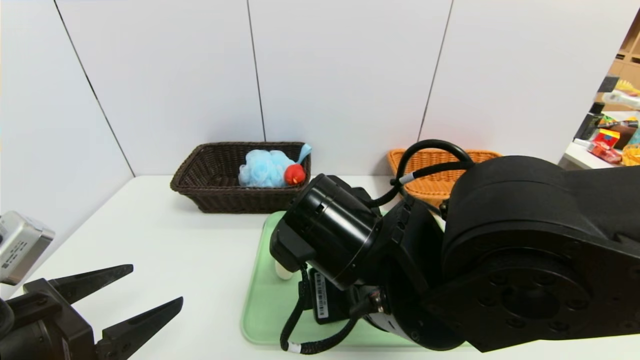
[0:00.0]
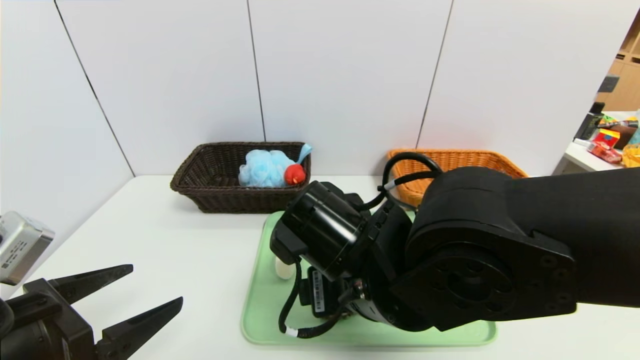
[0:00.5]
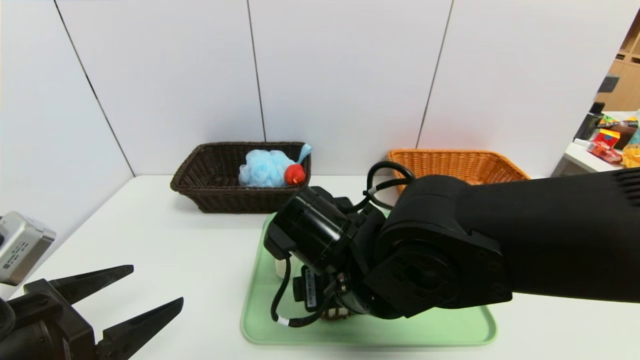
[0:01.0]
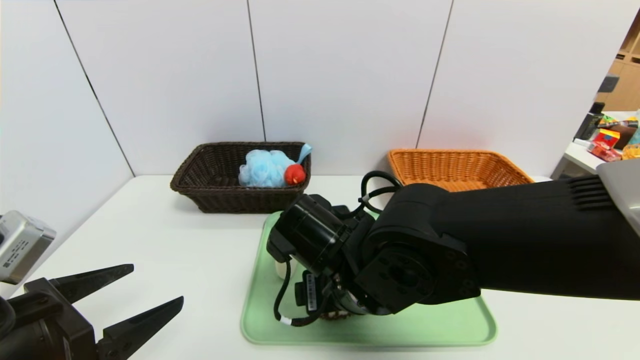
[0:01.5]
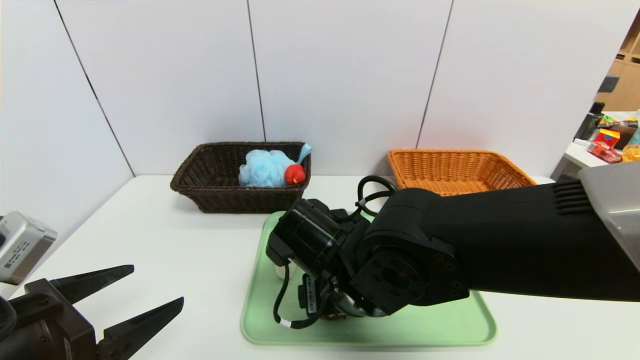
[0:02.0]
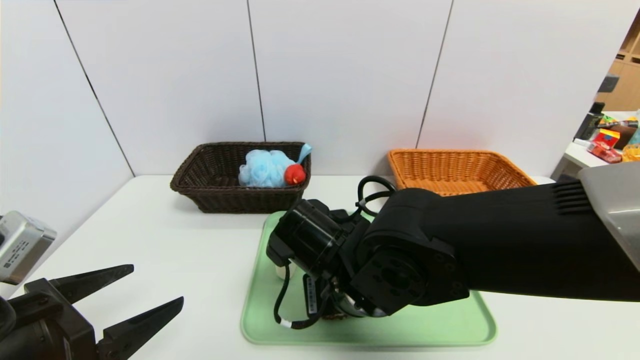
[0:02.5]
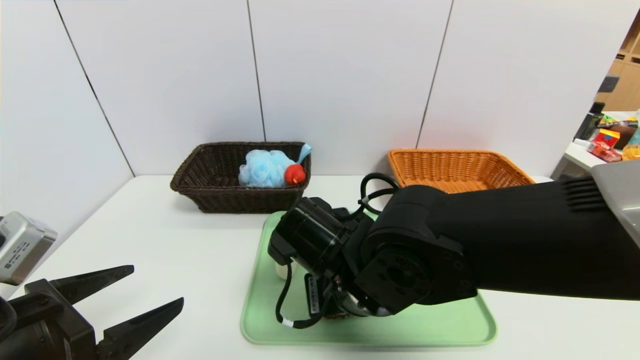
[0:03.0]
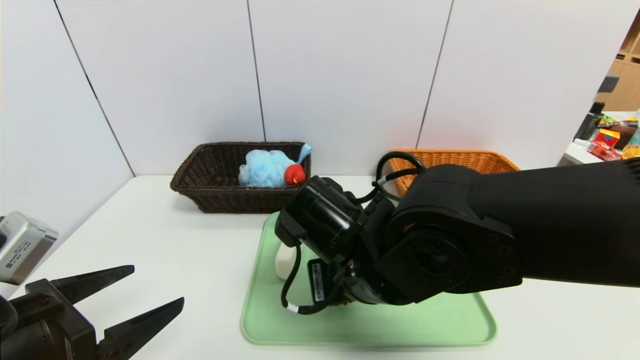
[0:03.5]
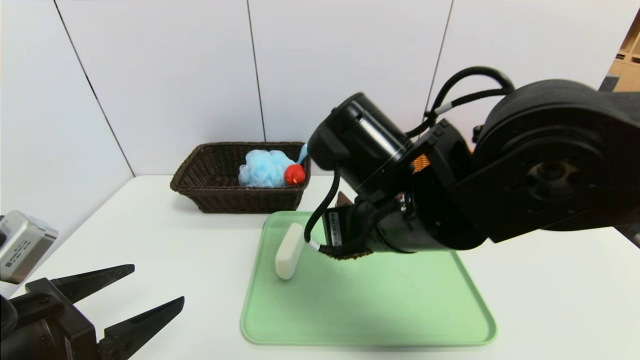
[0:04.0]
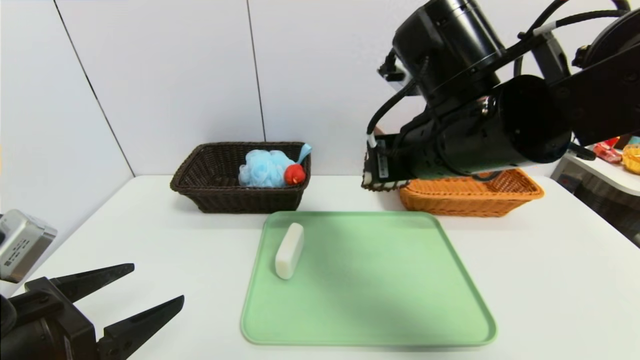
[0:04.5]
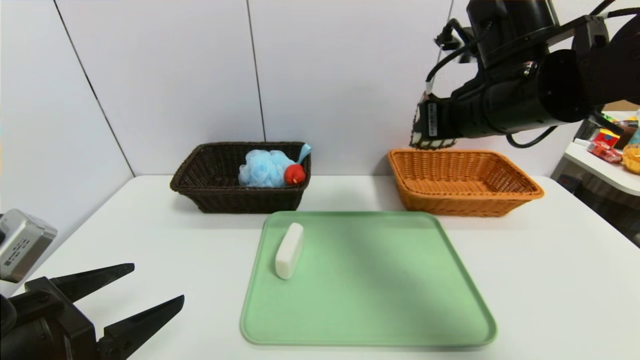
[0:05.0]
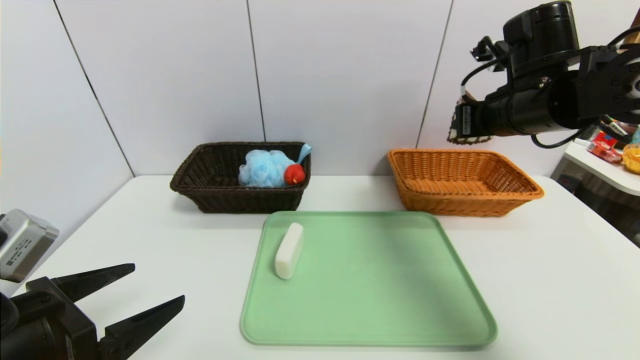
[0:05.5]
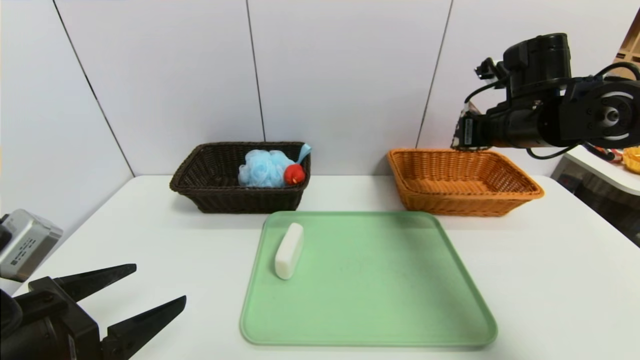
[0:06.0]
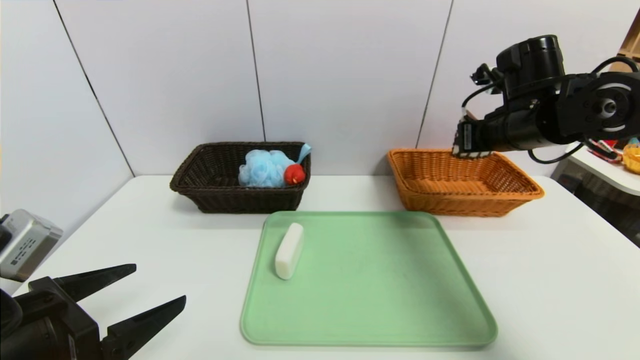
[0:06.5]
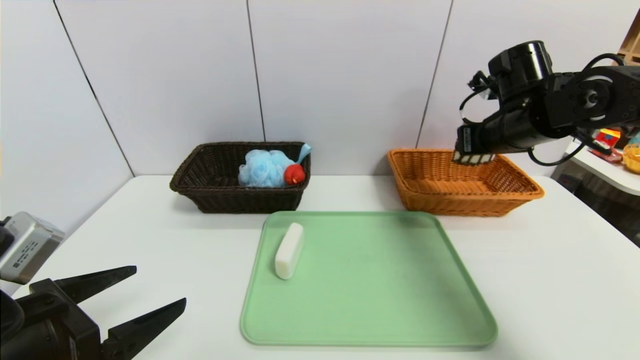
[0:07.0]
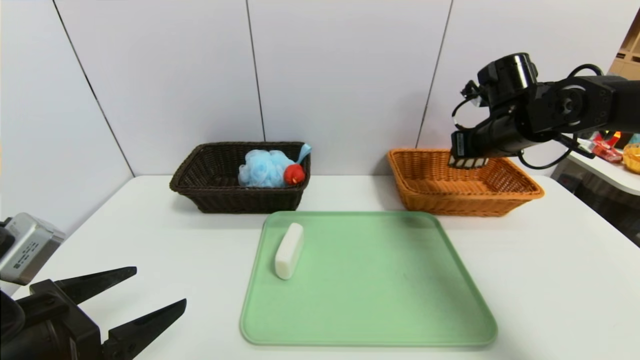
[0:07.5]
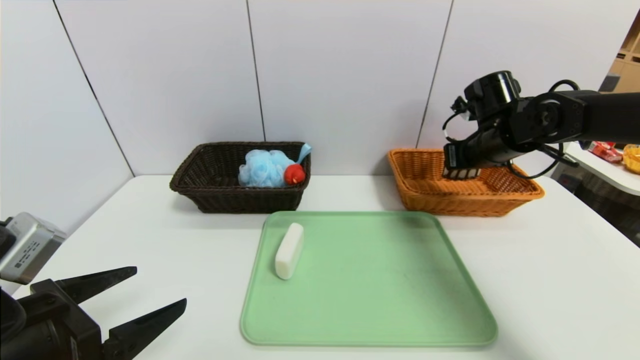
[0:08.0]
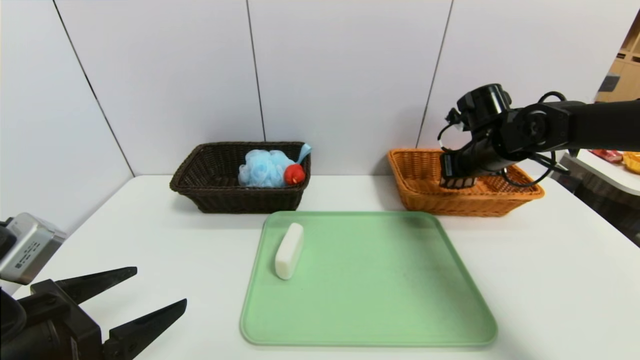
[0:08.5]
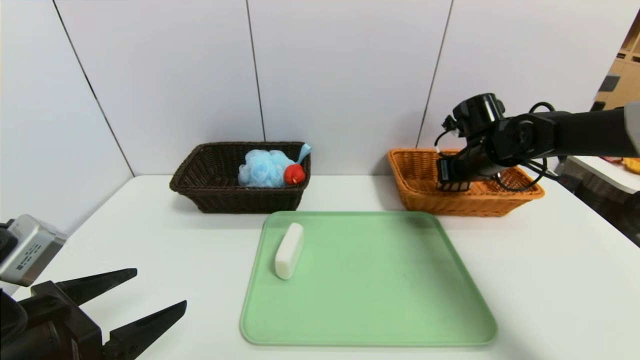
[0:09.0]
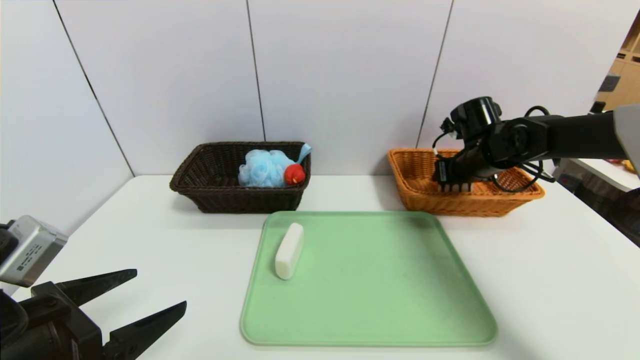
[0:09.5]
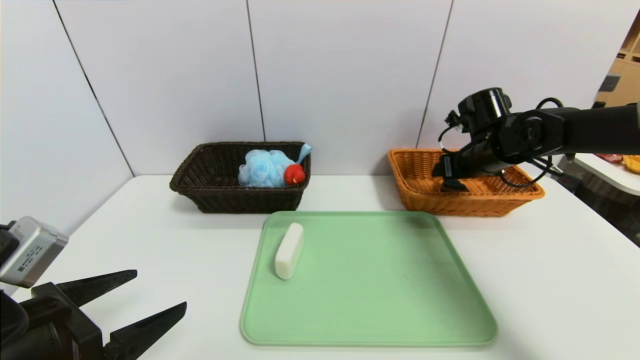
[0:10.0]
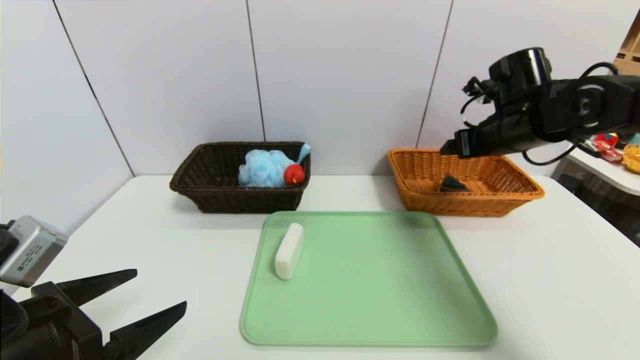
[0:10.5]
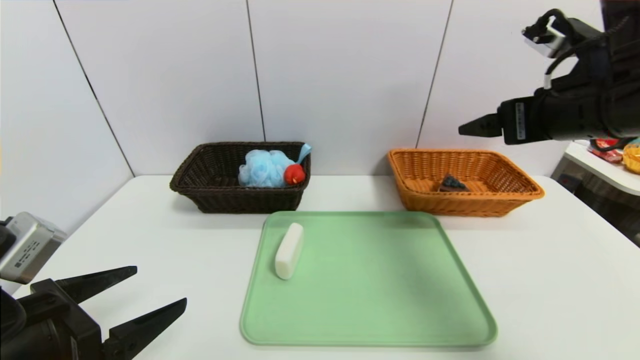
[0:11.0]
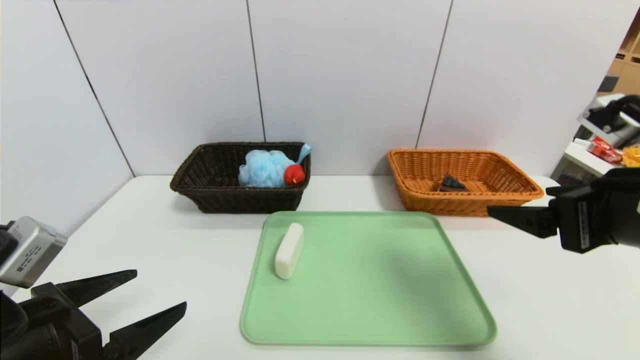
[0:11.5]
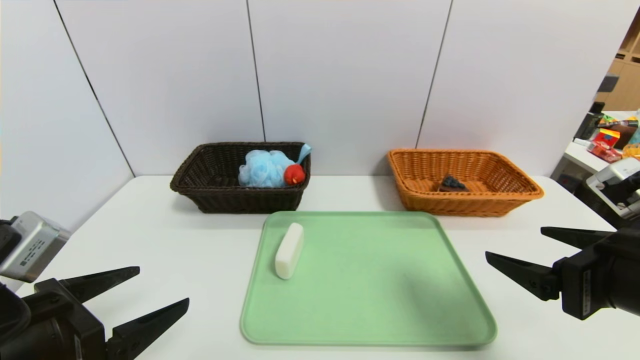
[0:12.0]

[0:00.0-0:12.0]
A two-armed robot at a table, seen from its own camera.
Task of the whole recording: place the food in the right basket with the right gripper, and place the non food items in the left basket with the left gripper.
Step, 0:00.0 to 0:10.5: Grasp the triangle cake and put it in the right basket.
0:00.0 to 0:02.0: The right gripper heads downward, covering about 5 cm.
0:02.0 to 0:04.0: The right gripper shifts roughly 10 cm upward, and closes its fingers.
0:04.0 to 0:06.0: The right gripper goes roughly 25 cm to the right and forward.
0:06.0 to 0:08.0: The right gripper travels forward by roughly 5 cm.
0:08.0 to 0:10.0: The right gripper opens.
0:10.0 to 0:12.0: The right gripper moves backward, some 30 cm.

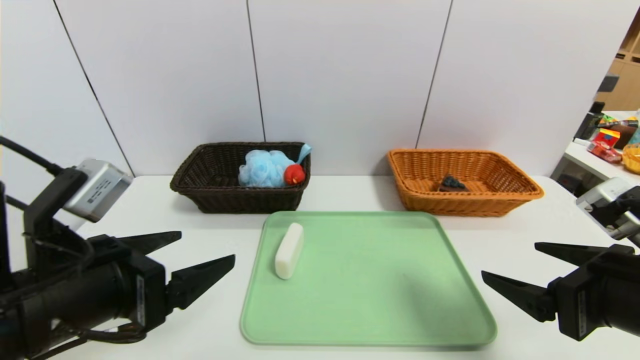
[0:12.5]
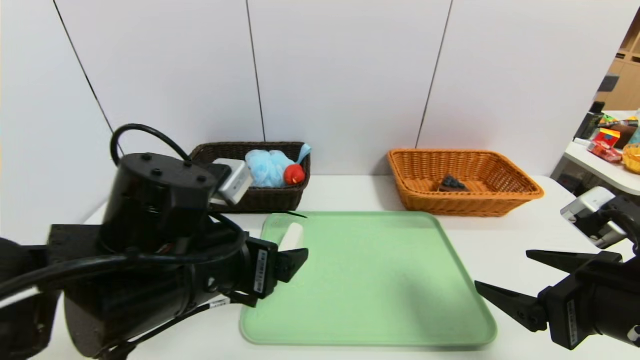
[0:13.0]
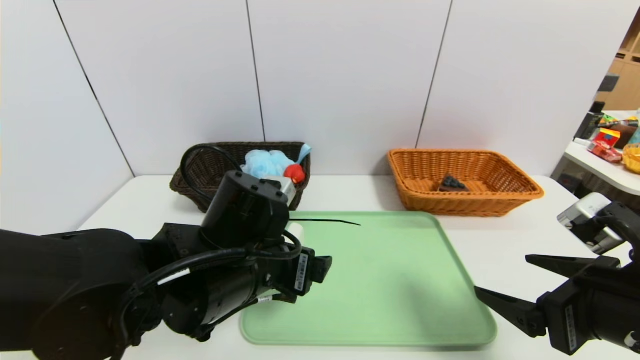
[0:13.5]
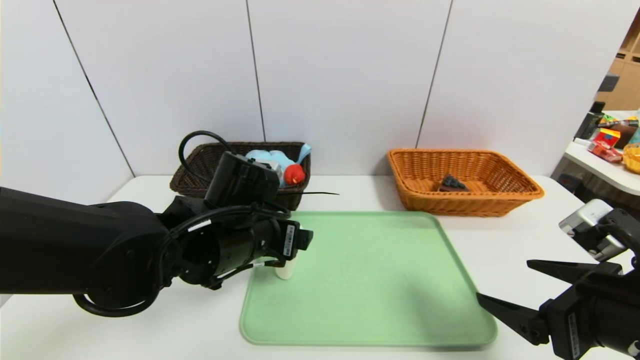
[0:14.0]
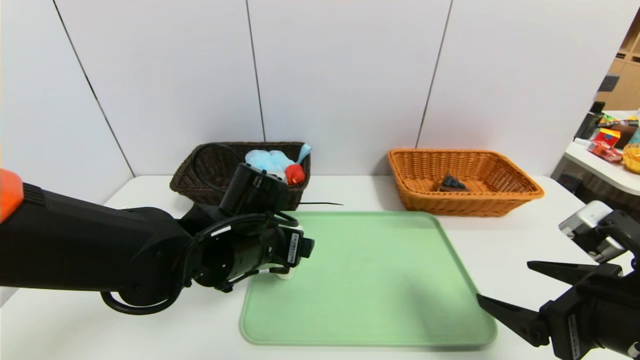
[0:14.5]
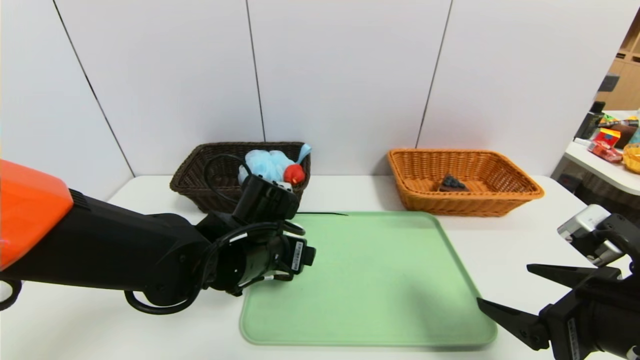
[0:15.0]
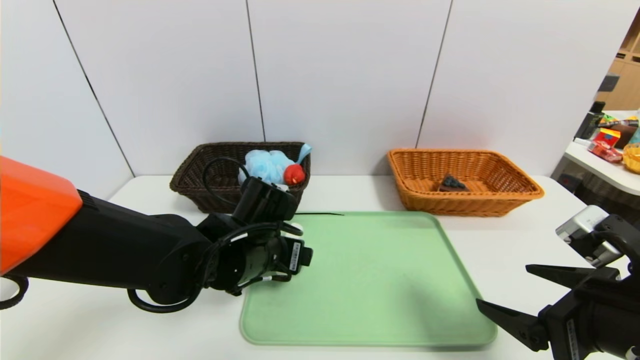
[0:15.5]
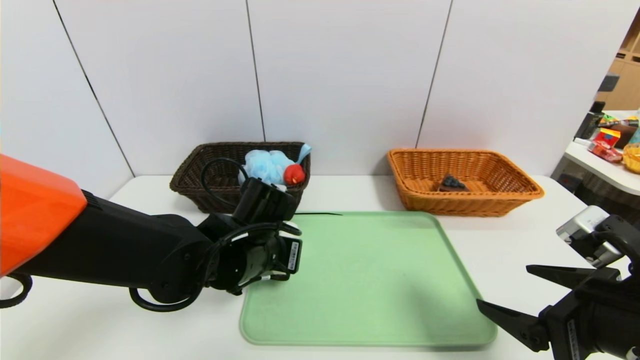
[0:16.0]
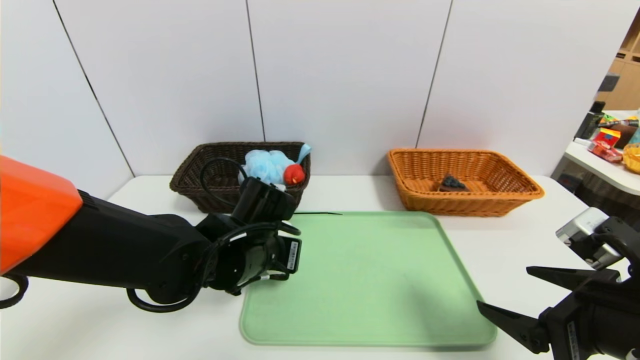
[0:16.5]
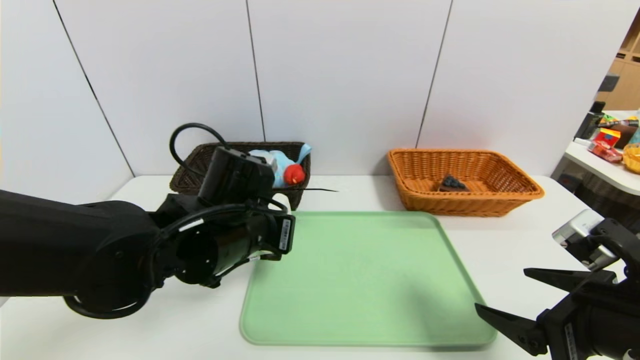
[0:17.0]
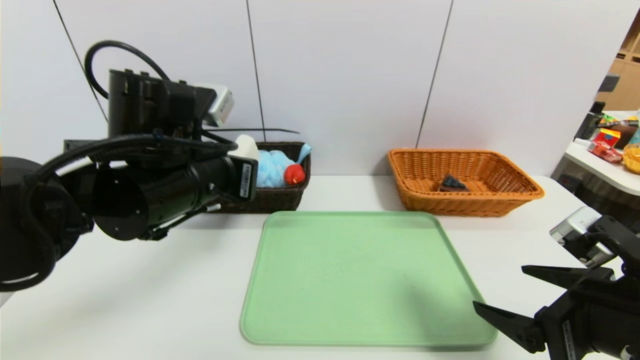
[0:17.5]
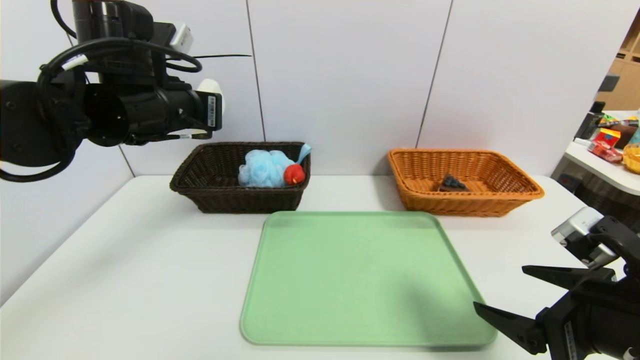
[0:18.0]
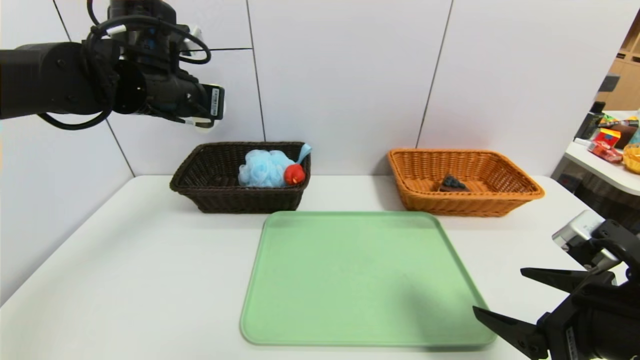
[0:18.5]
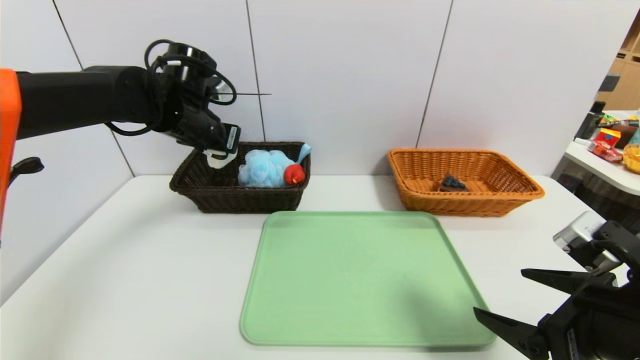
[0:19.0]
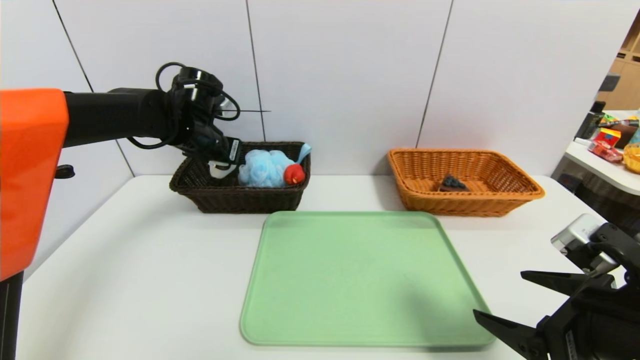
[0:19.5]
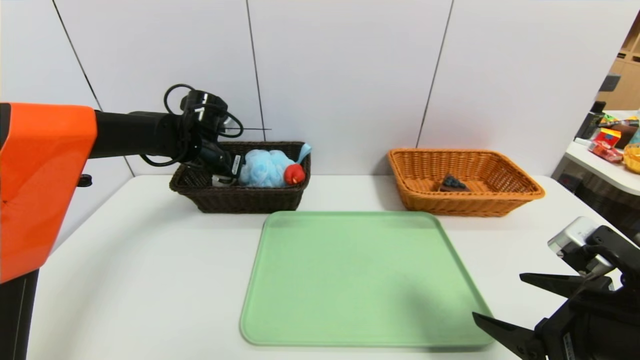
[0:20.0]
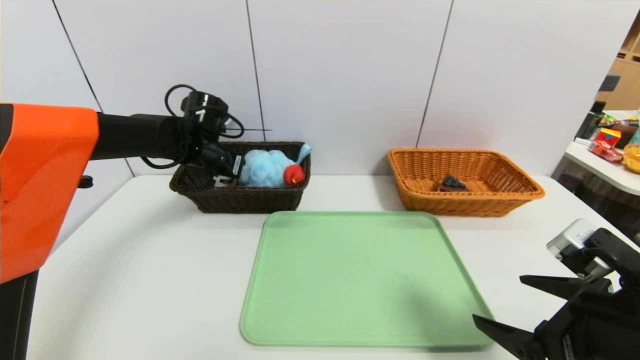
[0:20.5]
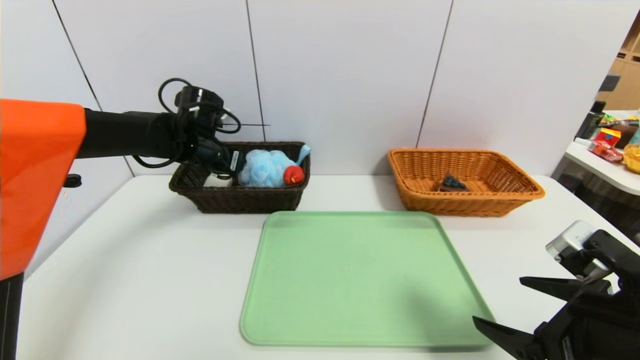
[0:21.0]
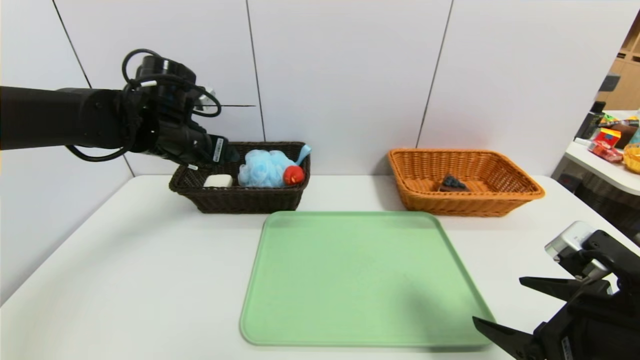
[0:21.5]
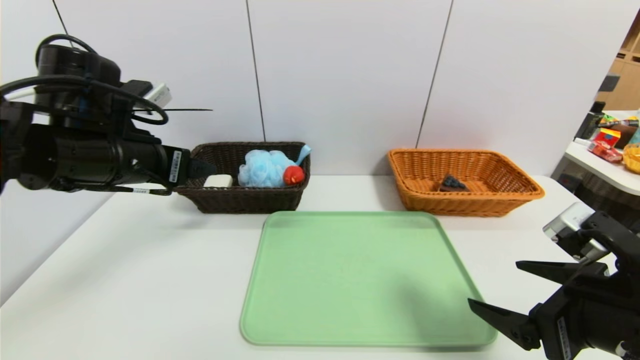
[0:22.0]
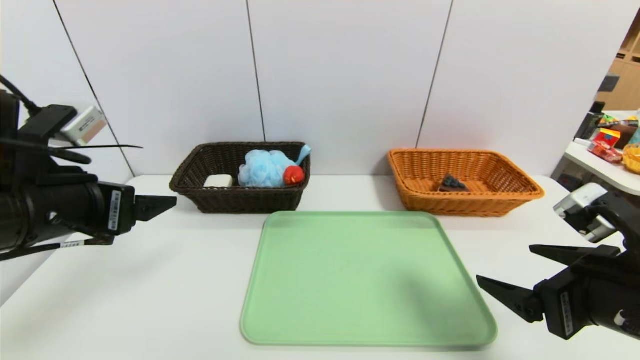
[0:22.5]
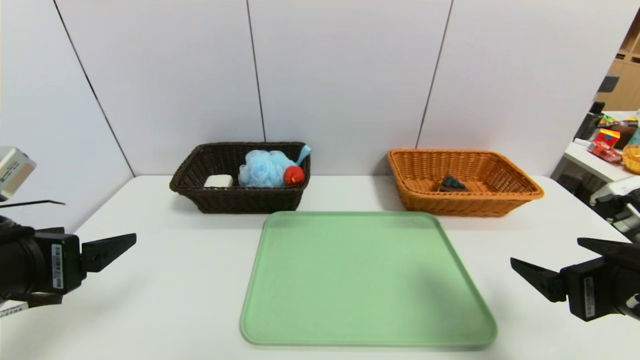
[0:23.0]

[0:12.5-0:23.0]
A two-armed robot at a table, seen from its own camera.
Task of the whole recording: place the food in the right basket with the right gripper, and place the non food items in the left basket with the left gripper.
Step, 0:12.5 to 0:21.5: Grasp the soap and put it in the left basket.
0:12.5 to 0:14.5: The left gripper goes approximately 20 cm forward, to the right and downward.
0:14.5 to 0:16.5: The left gripper closes up.
0:16.5 to 0:19.0: The left gripper is displaced forward, upward and to the left by some 20 cm.
0:19.0 to 0:21.0: The left gripper moves downward, approximately 5 cm, and opens up.
0:21.0 to 0:23.0: The left gripper heads backward, covering some 30 cm.
